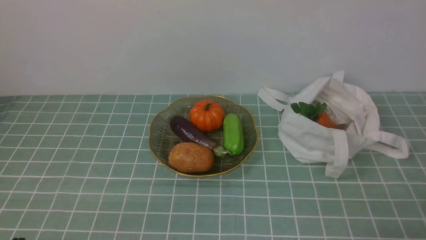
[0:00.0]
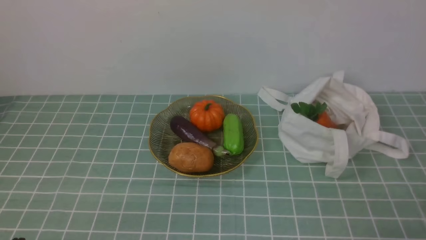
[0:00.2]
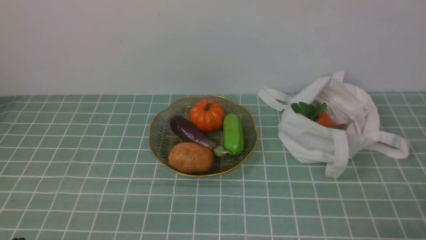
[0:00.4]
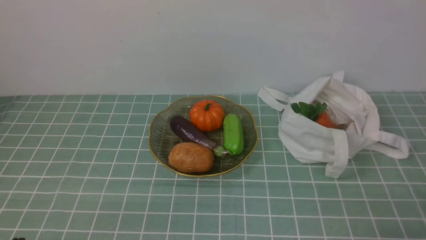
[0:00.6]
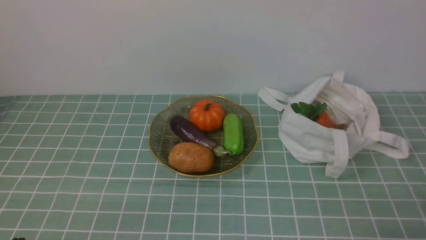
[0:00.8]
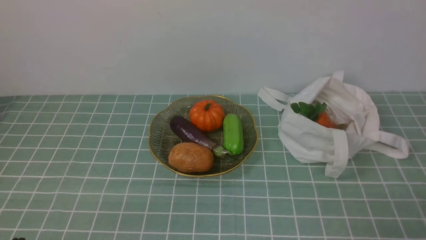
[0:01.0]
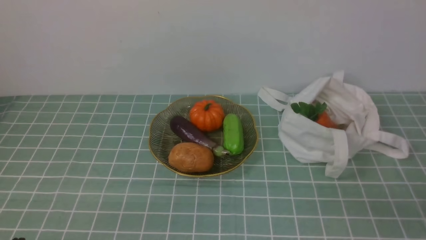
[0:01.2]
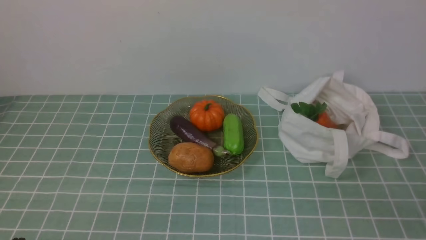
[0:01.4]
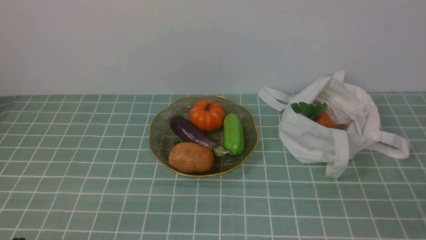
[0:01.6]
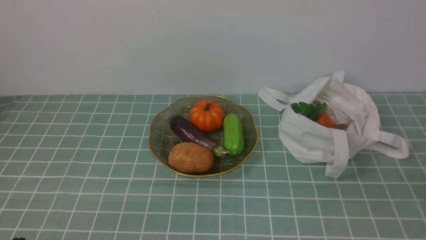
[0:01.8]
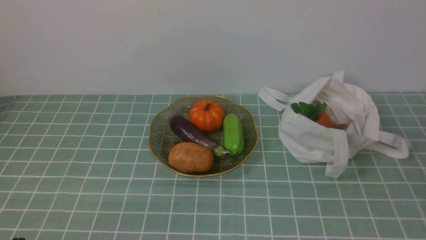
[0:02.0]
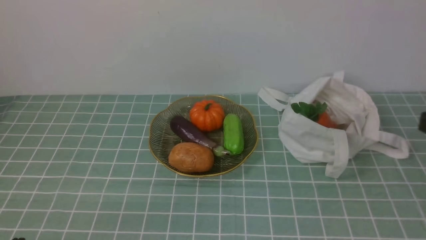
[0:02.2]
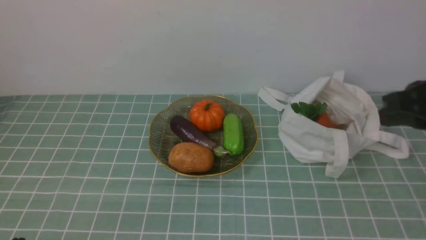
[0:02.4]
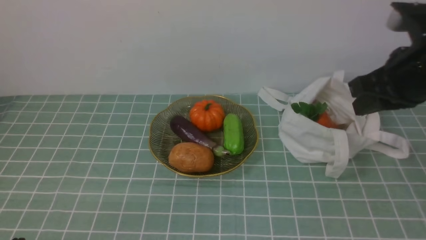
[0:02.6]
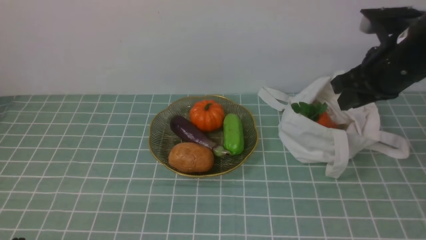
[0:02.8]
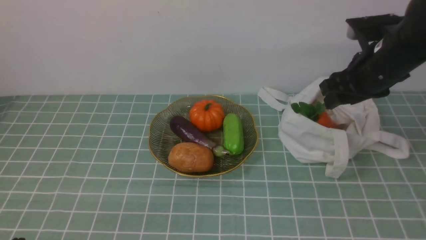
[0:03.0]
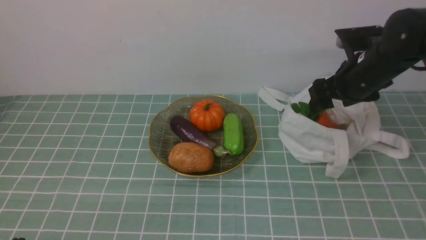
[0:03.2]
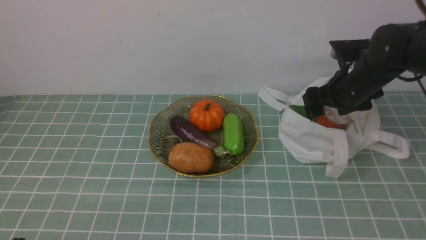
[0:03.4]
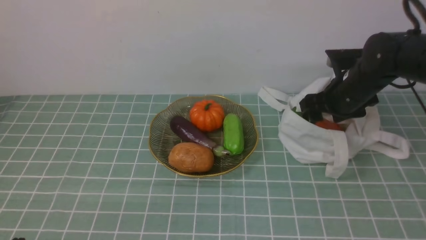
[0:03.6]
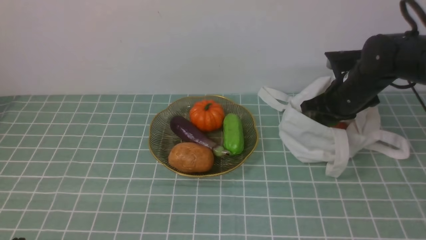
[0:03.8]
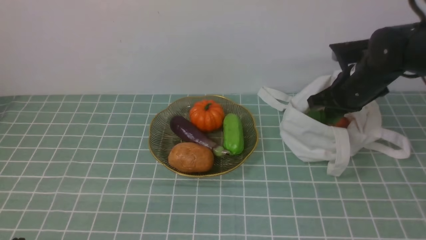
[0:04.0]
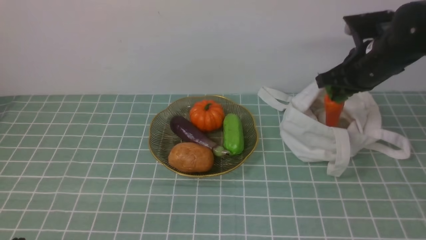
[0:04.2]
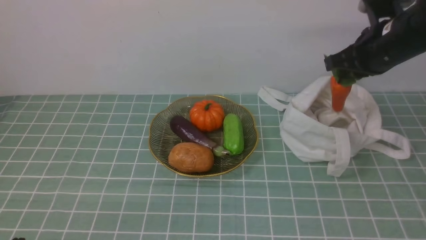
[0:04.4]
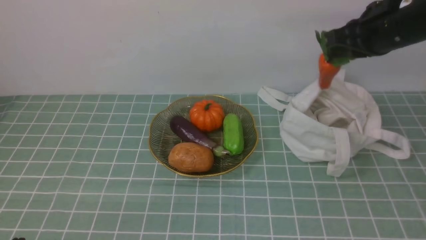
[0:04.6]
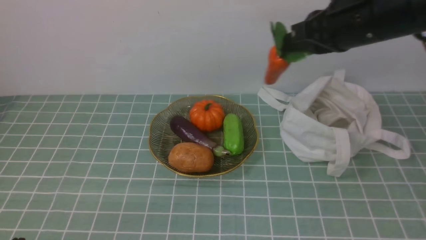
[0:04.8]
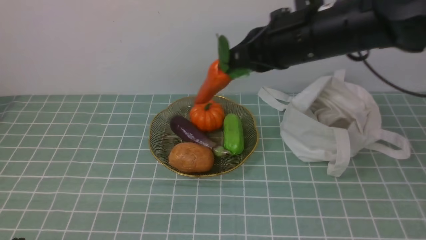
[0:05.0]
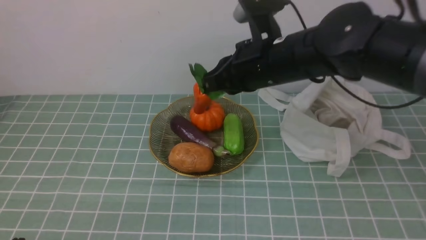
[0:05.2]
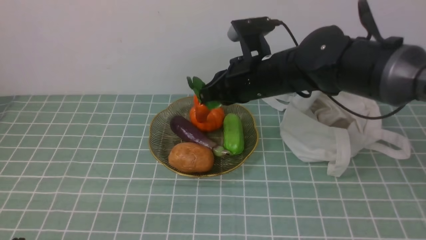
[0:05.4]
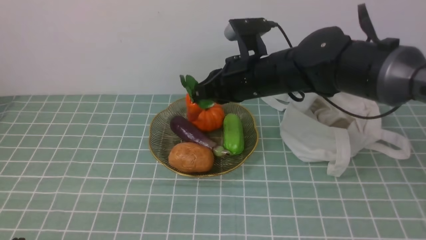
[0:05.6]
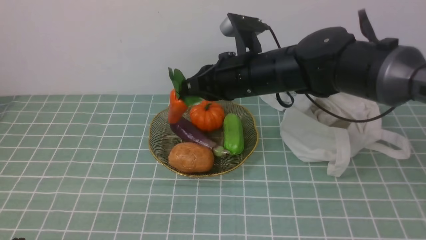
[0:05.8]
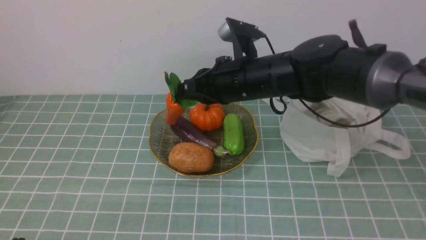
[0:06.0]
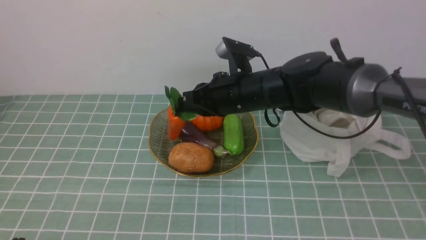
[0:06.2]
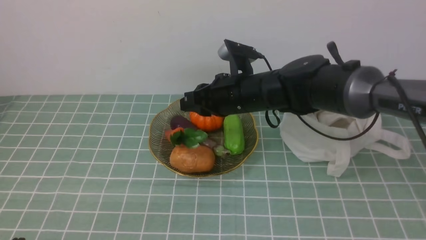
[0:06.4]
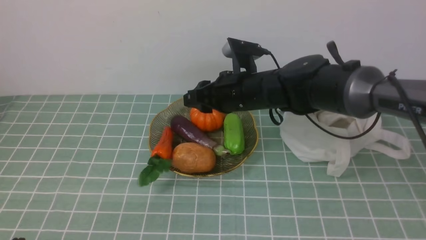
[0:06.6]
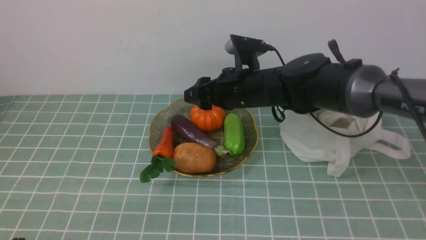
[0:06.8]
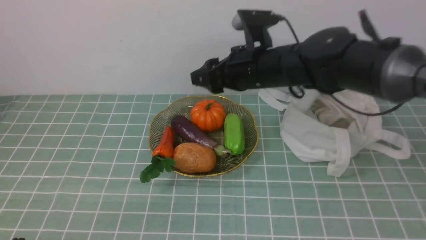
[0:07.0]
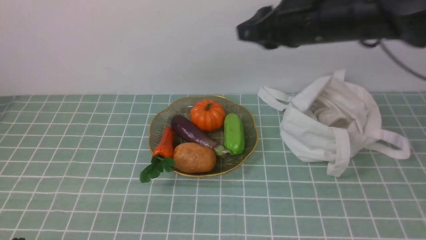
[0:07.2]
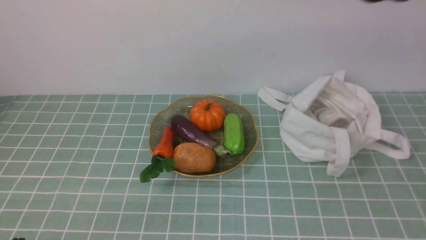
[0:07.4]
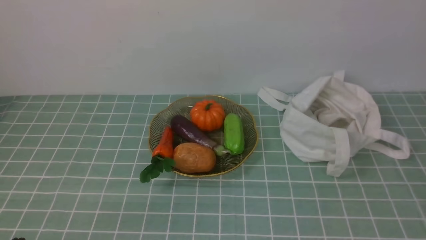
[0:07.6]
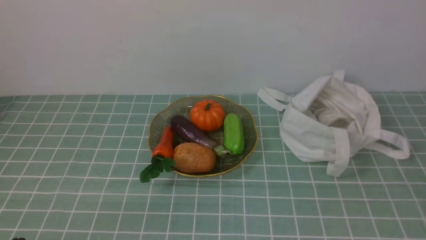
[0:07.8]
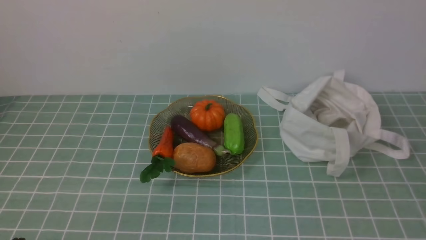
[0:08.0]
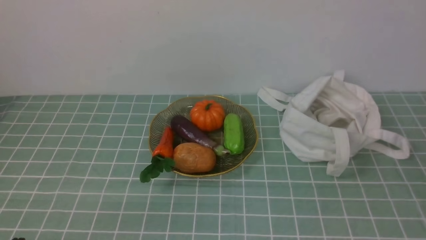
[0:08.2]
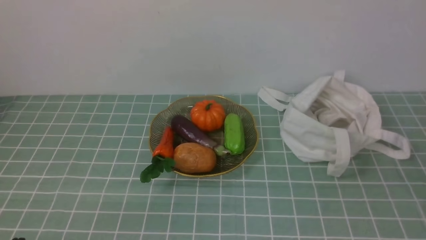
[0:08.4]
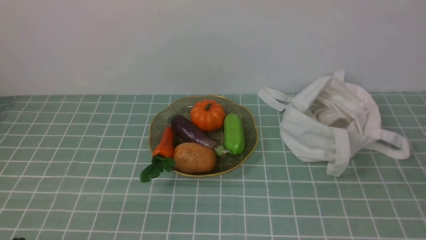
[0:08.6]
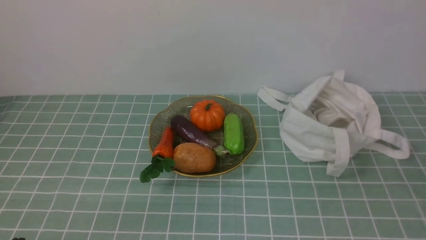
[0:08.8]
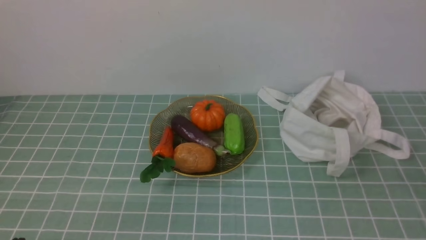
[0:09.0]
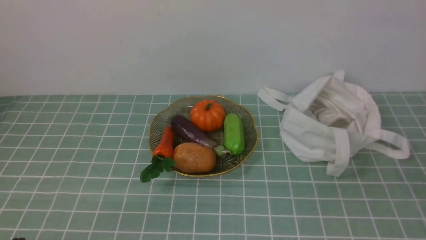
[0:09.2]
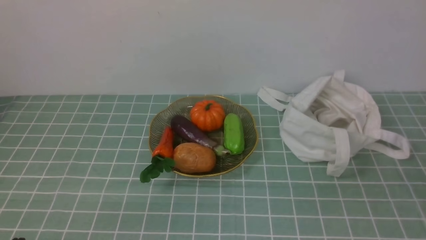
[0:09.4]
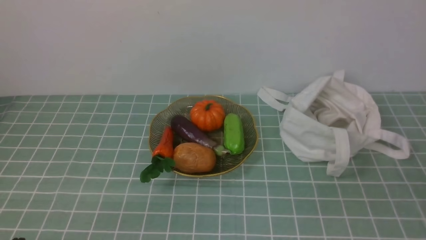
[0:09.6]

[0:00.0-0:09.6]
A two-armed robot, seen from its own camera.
Task of the whole recording: take vegetables from cloth bag on blue coffee tablecloth place on plate.
Step, 0:00.0 to 0:03.8: Grasp the radish with right gripper.
Step, 0:04.0 to 0:06.6: Place the radish on the plate with right gripper.
0:01.6 to 0:03.2: The right gripper goes some 35 cm forward, and opens its fingers.
0:03.2 to 0:04.8: The right gripper heads upward, covering roughly 10 cm, and closes up.
0:04.8 to 0:06.4: The right gripper heads to the left and downward, covering roughly 20 cm.
0:06.4 to 0:08.0: The right gripper shifts roughly 50 cm backward, to the right and upward, and opens, then closes once more.

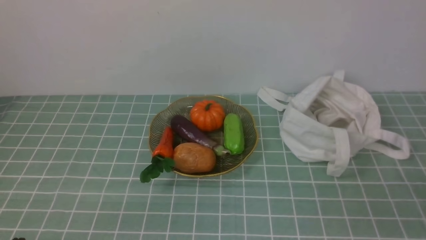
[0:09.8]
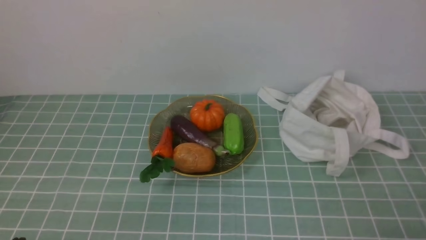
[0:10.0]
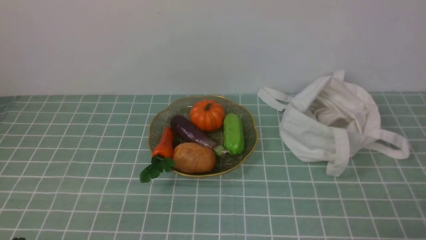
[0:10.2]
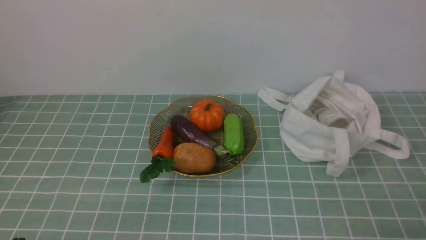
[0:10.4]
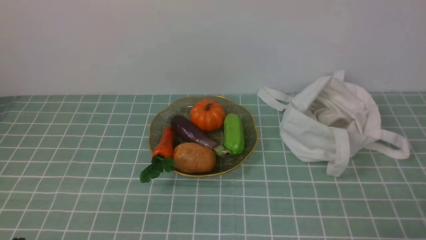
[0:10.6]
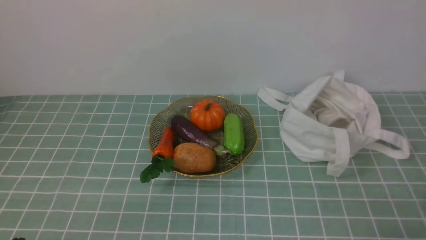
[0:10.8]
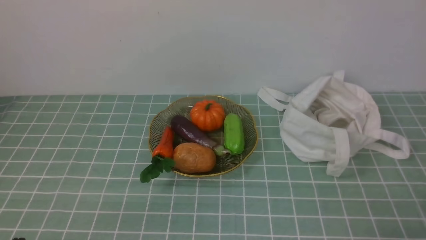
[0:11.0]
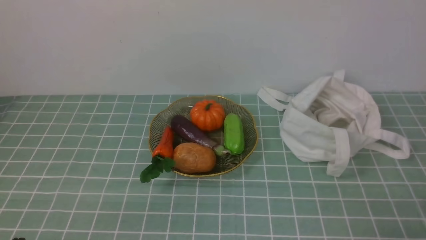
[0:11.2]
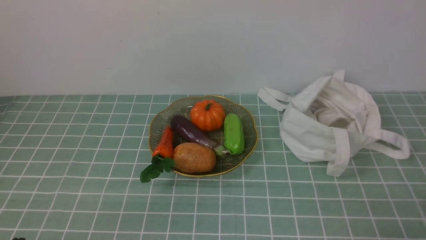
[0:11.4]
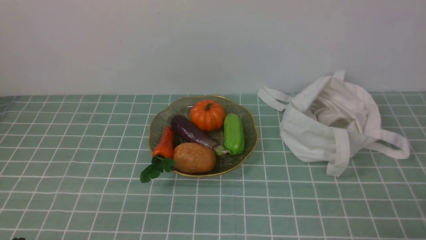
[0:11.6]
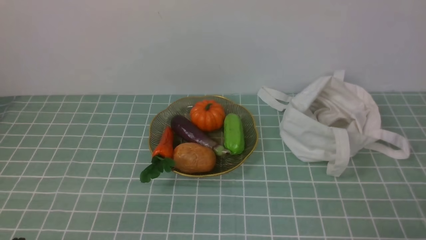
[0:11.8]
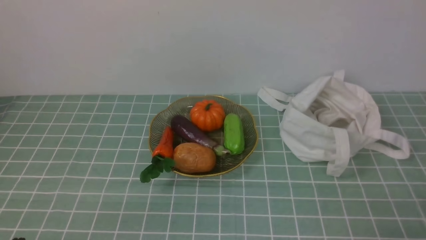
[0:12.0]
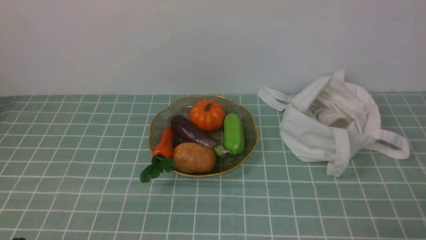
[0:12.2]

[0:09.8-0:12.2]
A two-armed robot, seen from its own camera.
Task of the whole recording: take vegetables from cloth bag on blue coffee tablecloth place on plate.
0:11.0 to 0:12.2: Both grippers stay about where they are.
